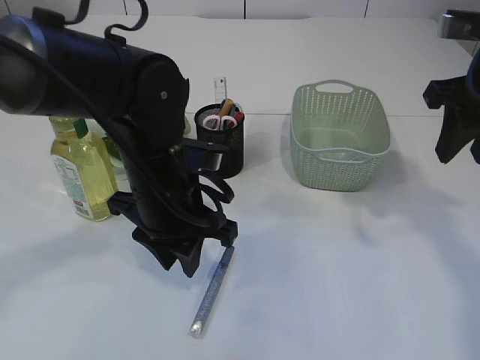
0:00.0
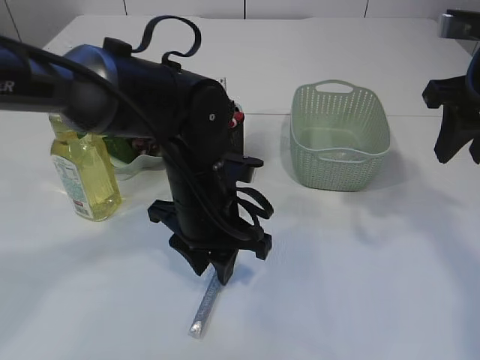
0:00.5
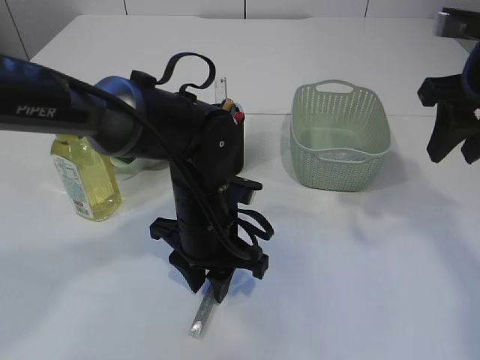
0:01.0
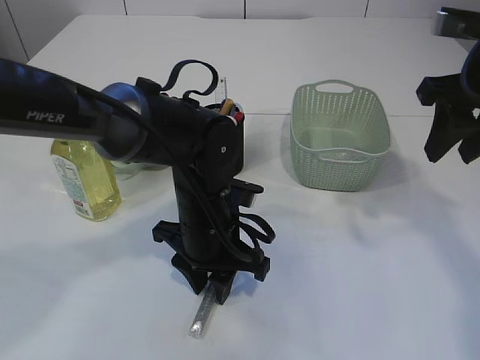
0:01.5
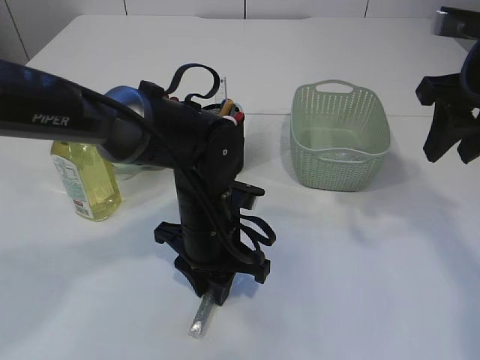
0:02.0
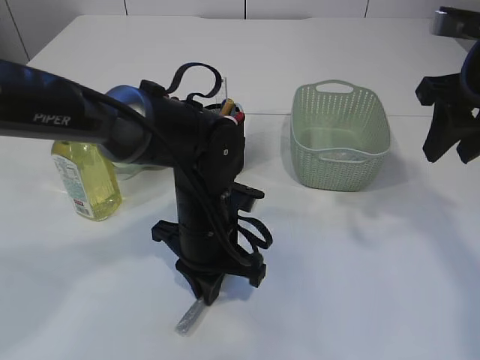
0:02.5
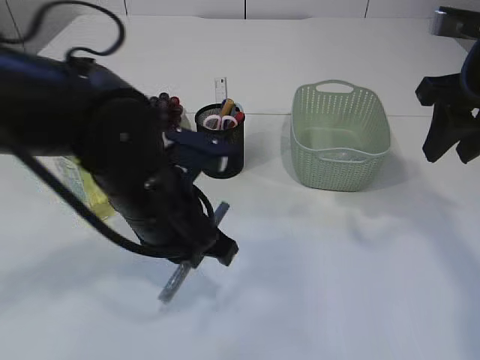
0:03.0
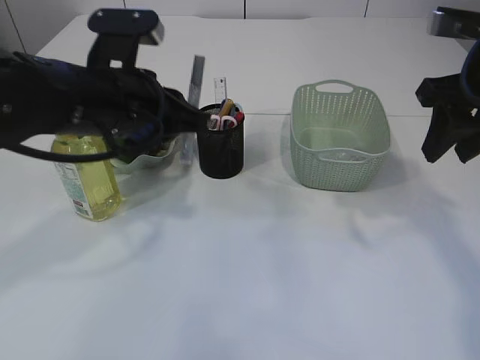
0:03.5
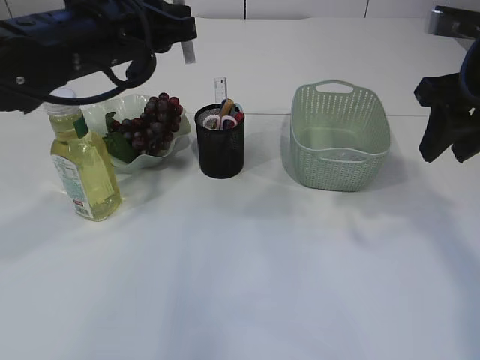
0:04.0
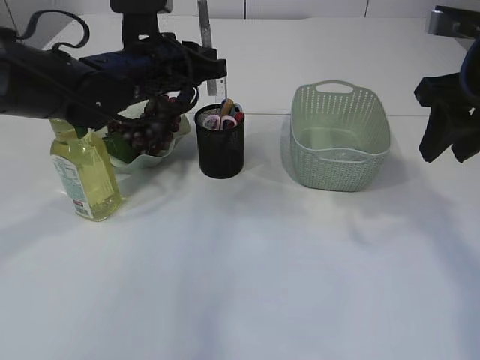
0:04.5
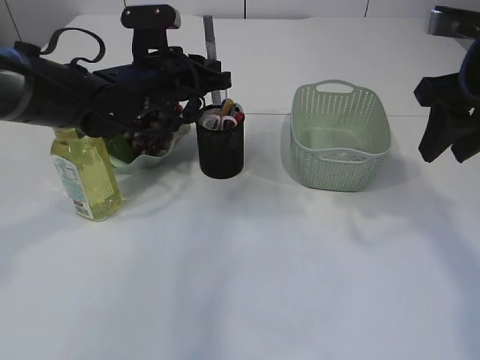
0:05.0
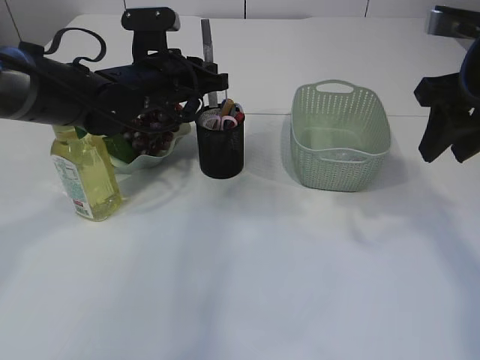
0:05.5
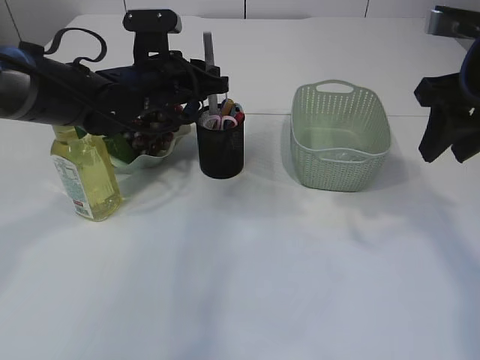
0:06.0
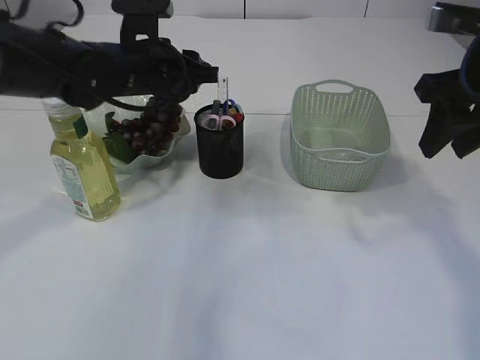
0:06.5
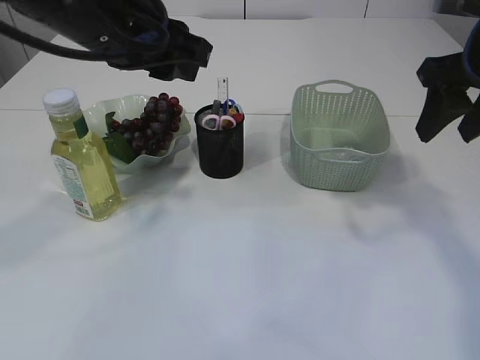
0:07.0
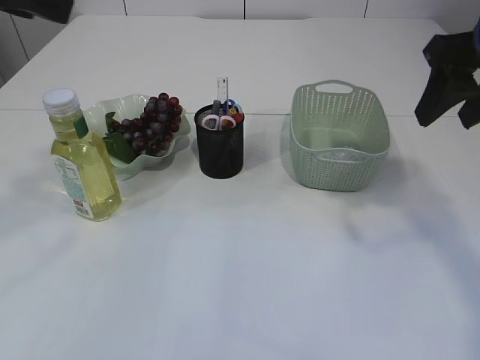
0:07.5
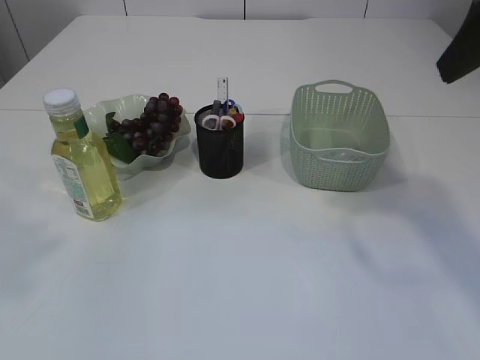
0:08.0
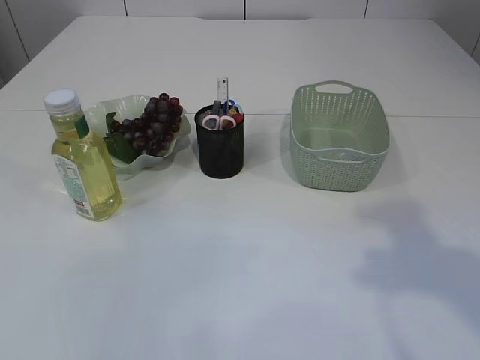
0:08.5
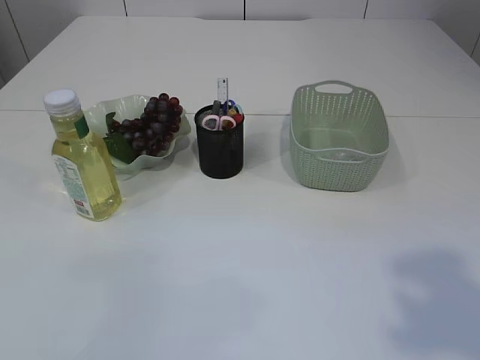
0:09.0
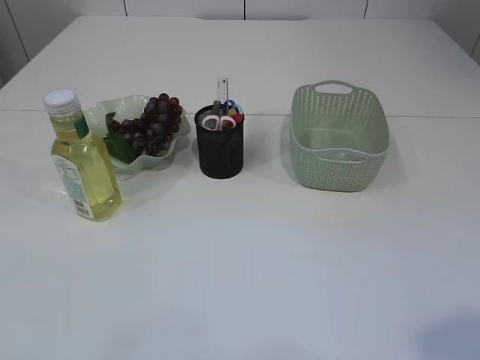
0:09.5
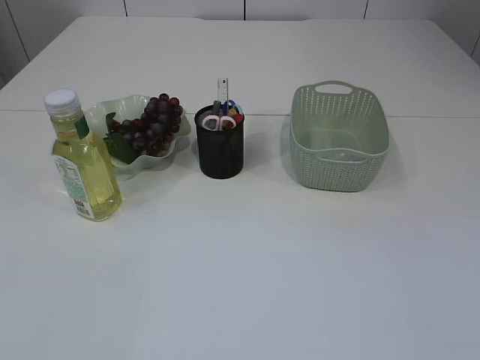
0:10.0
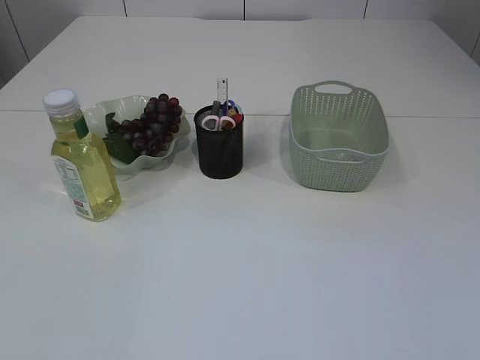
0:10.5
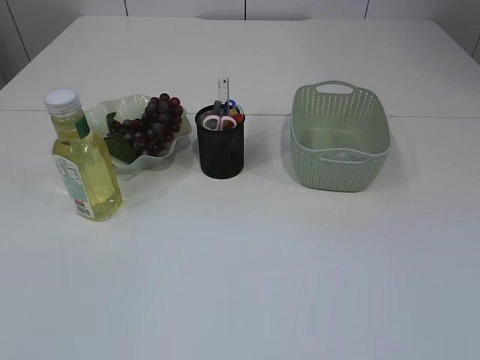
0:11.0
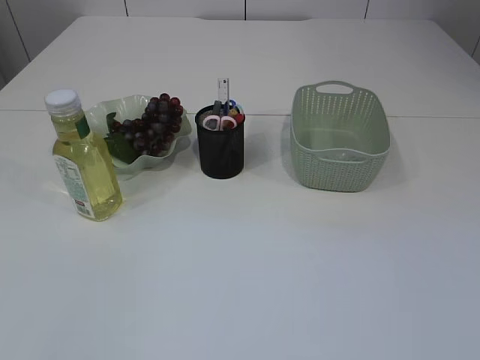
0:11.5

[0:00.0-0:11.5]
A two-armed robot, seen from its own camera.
Step, 0:00.0 to 0:03.0: pick up the silver glue.
Step, 0:03.5 to 0:06.5: place the silver glue into the pen holder.
0:00.0 to 0:02.0: The left gripper goes about 5 cm downward.
0:02.0 to 0:04.0: The left gripper heads upward and to the left, covering about 20 cm.
0:04.0 to 0:06.0: The left gripper shifts roughly 10 cm downward and forward.
0:06.0 to 0:07.5: The left gripper travels upward and backward by approximately 30 cm.
0:07.5 to 0:09.5: The right gripper is displaced backward by about 25 cm. The left gripper shifts about 30 cm backward, to the left and downward.
